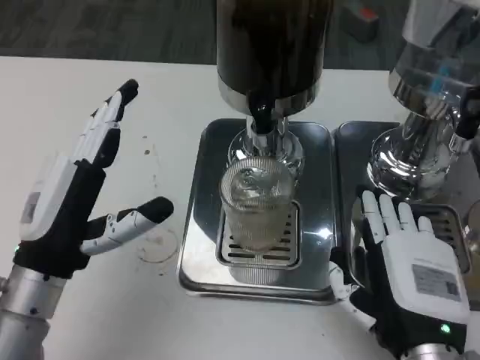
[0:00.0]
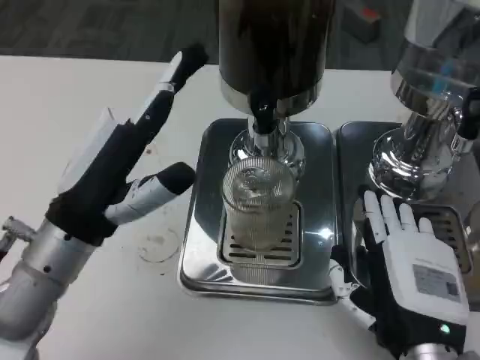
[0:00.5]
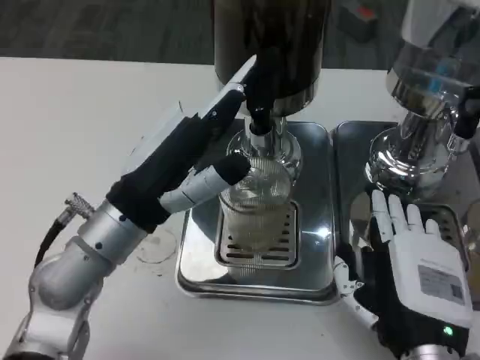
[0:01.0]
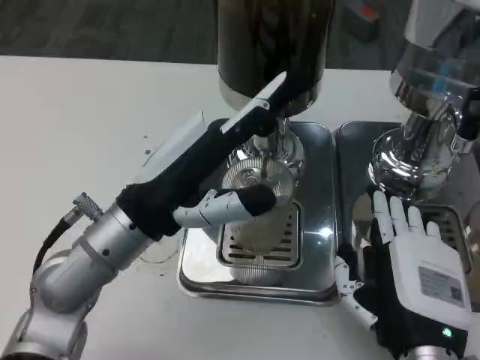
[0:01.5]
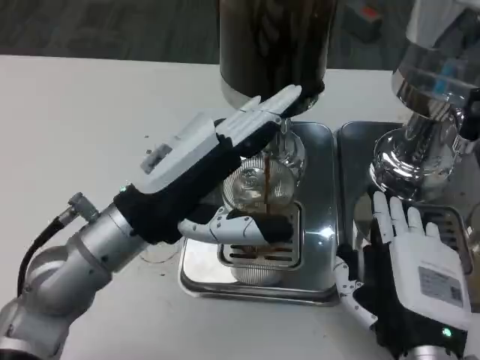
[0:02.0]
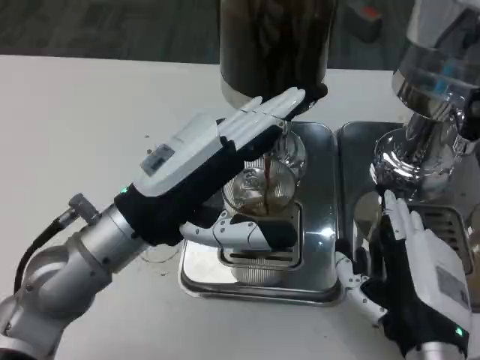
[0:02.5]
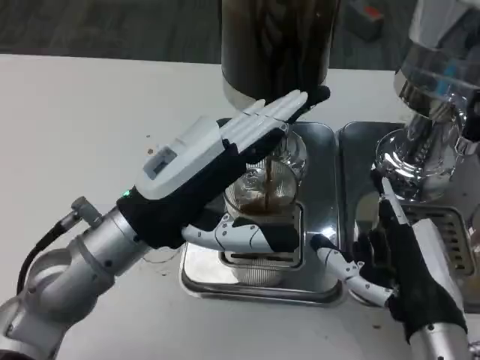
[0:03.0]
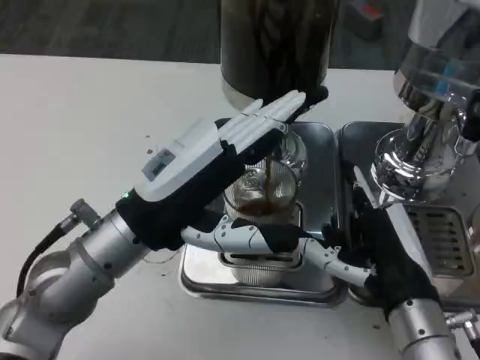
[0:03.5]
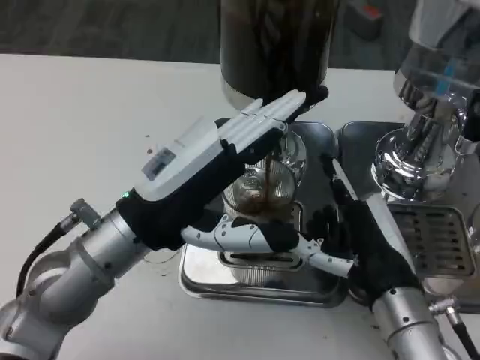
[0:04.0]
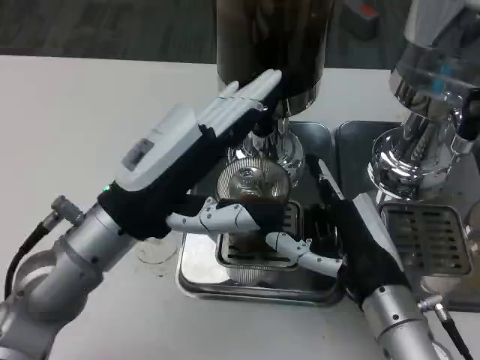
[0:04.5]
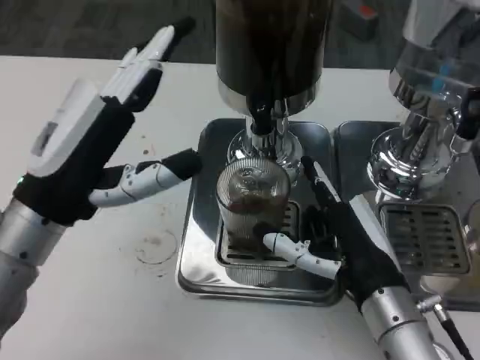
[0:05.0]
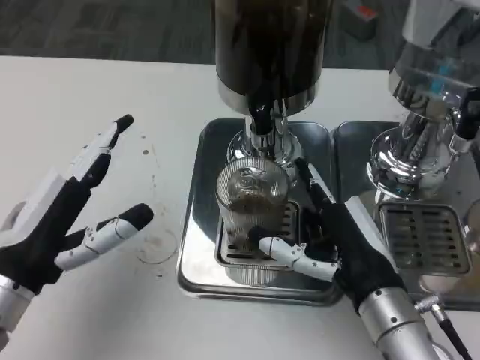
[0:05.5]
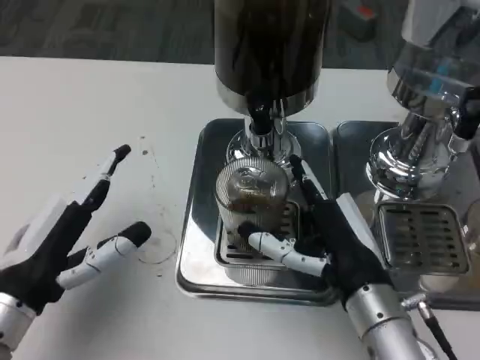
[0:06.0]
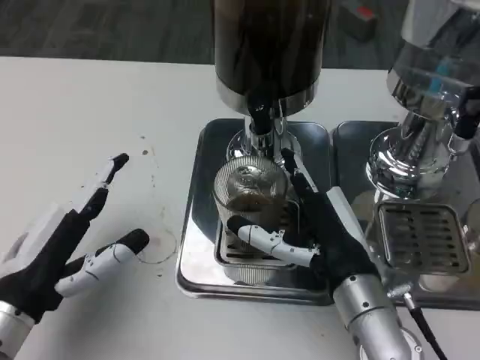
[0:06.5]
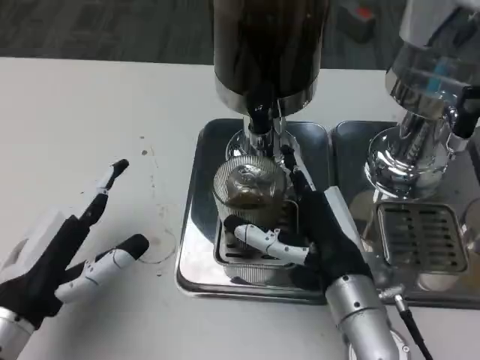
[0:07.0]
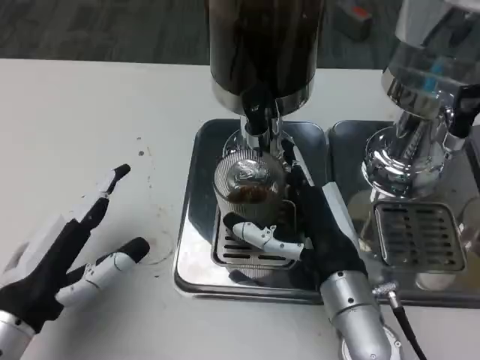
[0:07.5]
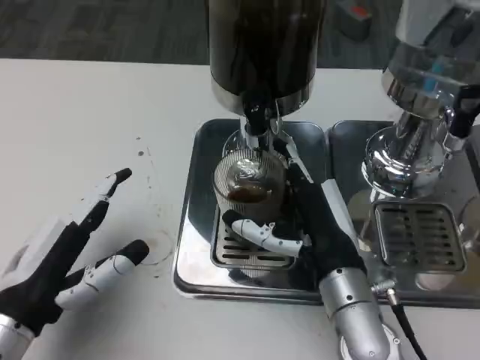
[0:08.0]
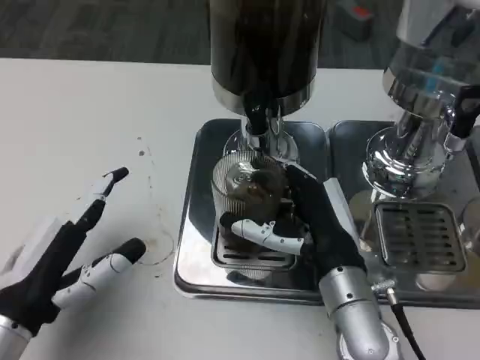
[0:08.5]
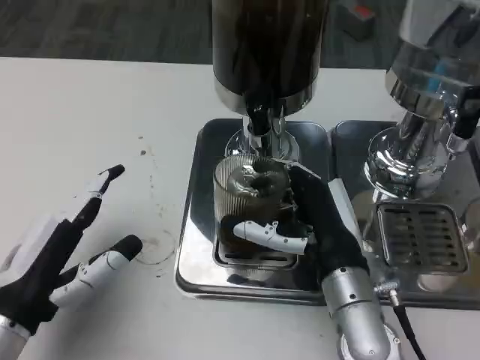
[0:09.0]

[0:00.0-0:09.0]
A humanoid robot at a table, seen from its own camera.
Task of the whole recording: Grasp the cup under the faucet to collect the drink, then remove the cup.
0:00.0 to 0:02.0: The left hand heads to the right and upward, covering about 10 cm.
0:02.0 to 0:04.5: The right hand goes roughly 5 cm forward.
0:04.5 to 0:07.0: The left hand shifts some 15 cm to the left, downward and backward.
0:07.0 to 0:09.0: The hands stay close to where they were, moving slightly.

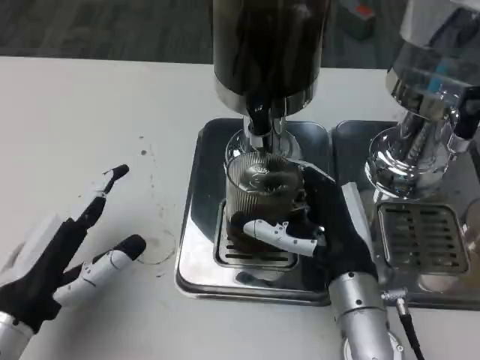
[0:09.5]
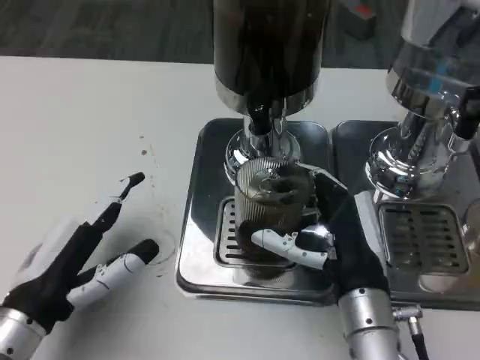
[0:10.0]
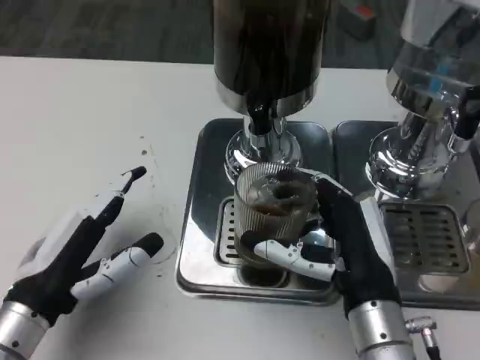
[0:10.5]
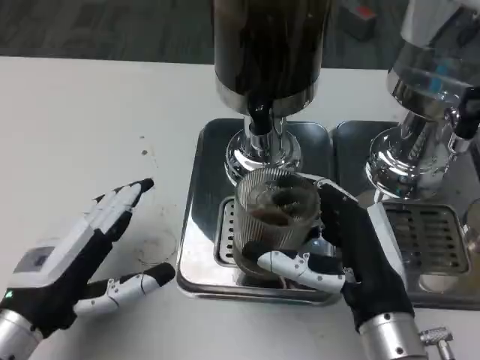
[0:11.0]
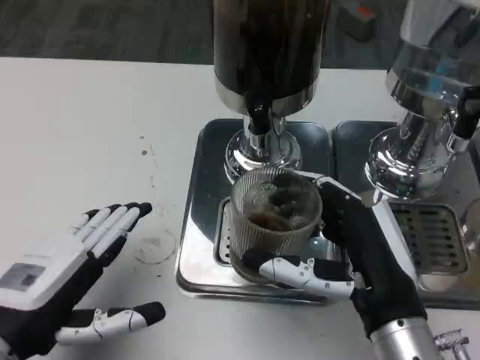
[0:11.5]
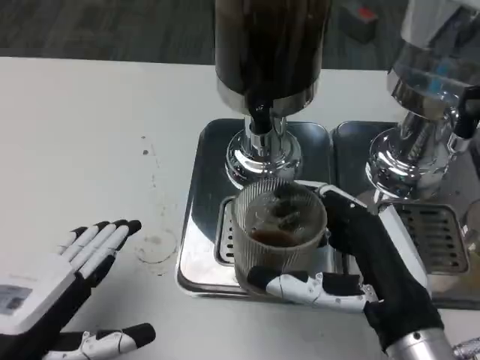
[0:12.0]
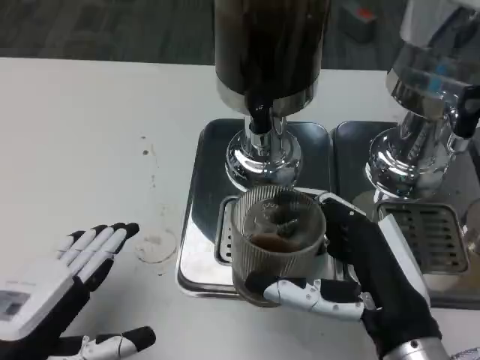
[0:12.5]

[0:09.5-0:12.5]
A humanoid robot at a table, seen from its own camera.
Task of the whole recording: Grasp the cup under the faucet to collect the drink, then remove the cup.
0:09.5 to 0:11.0: The right hand heads backward, covering some 5 cm.
0:11.0 to 0:12.5: The left hand ends up approximately 5 cm from where it was.

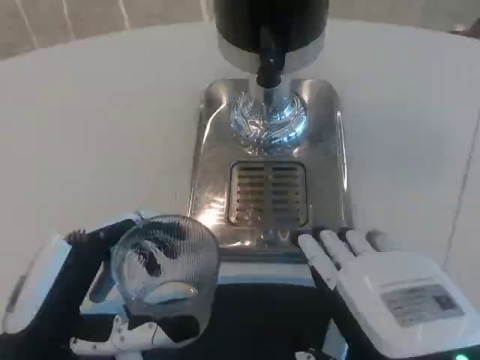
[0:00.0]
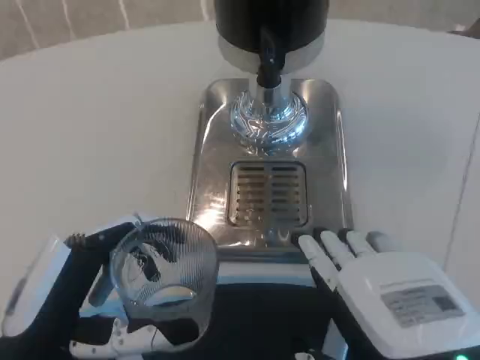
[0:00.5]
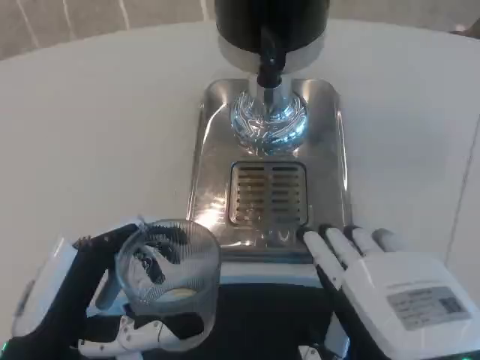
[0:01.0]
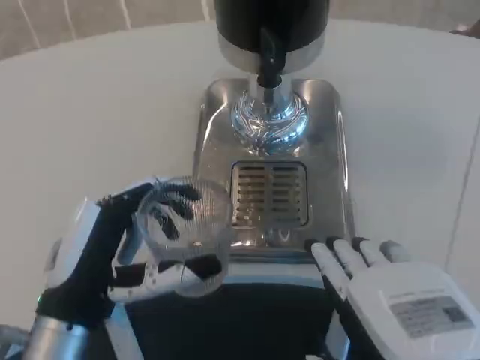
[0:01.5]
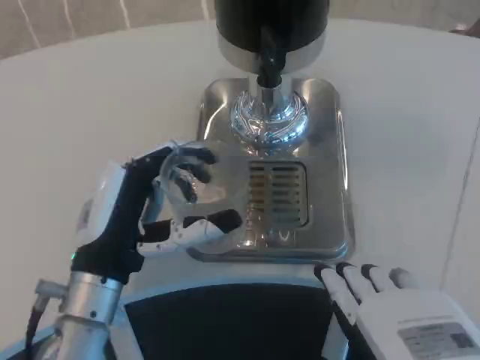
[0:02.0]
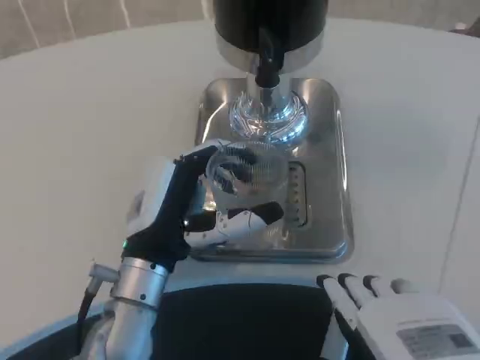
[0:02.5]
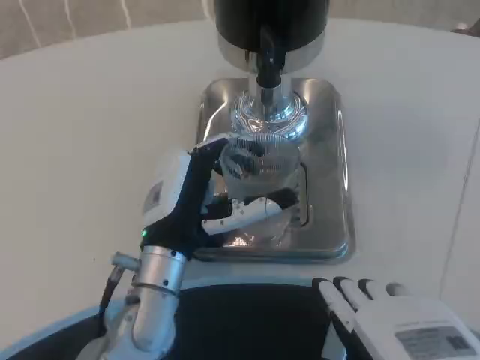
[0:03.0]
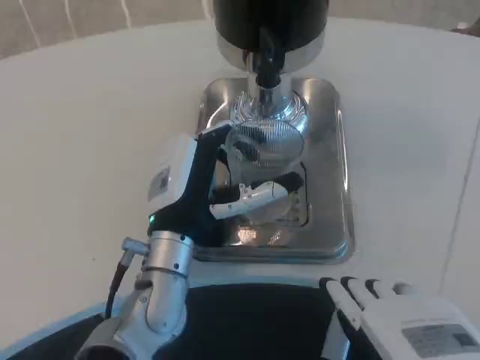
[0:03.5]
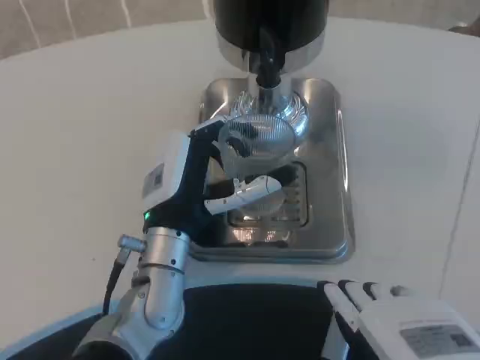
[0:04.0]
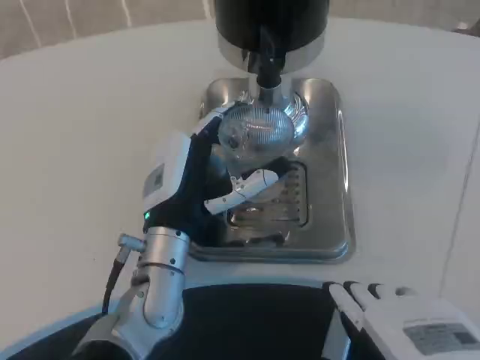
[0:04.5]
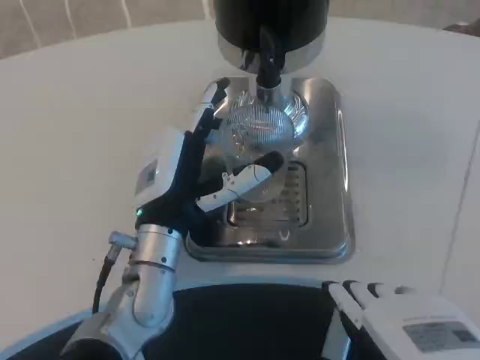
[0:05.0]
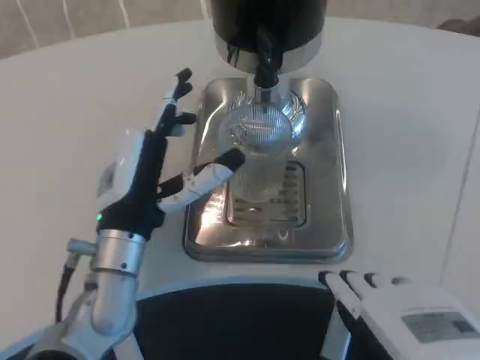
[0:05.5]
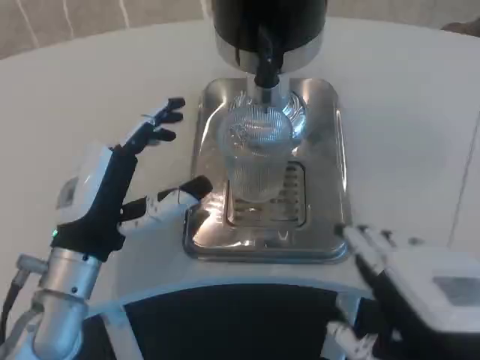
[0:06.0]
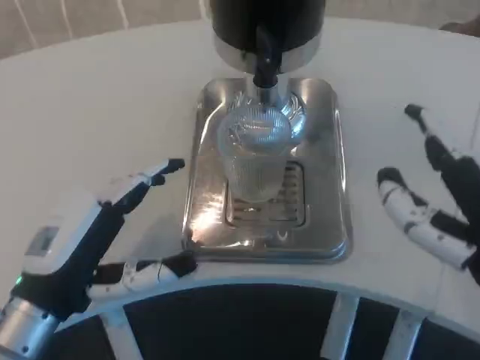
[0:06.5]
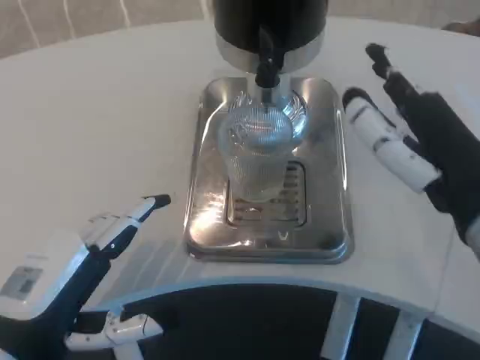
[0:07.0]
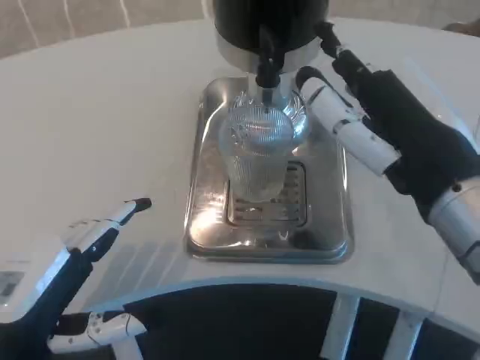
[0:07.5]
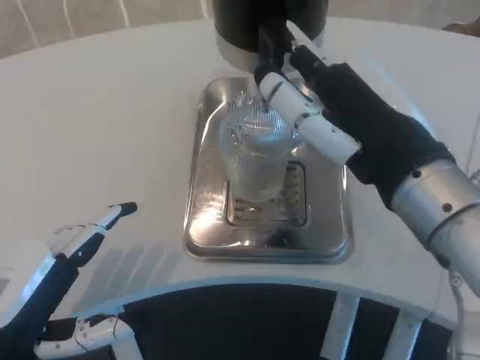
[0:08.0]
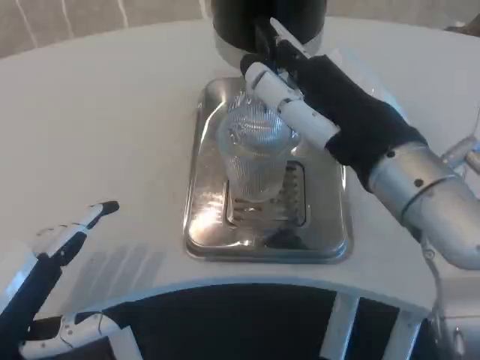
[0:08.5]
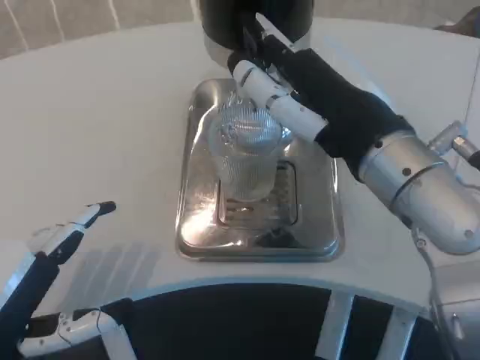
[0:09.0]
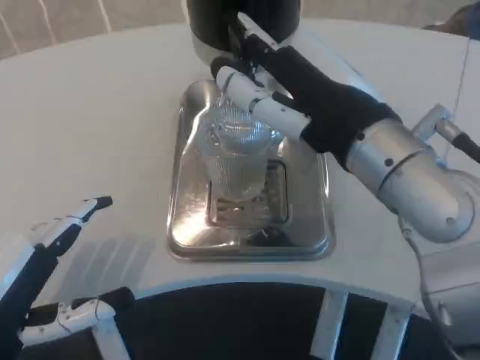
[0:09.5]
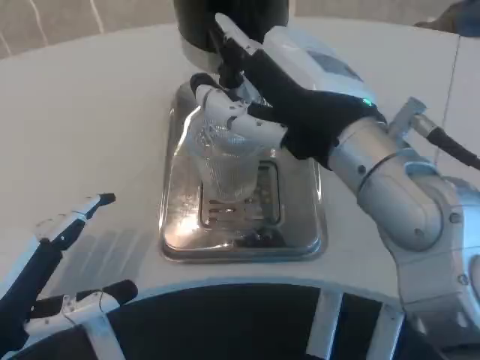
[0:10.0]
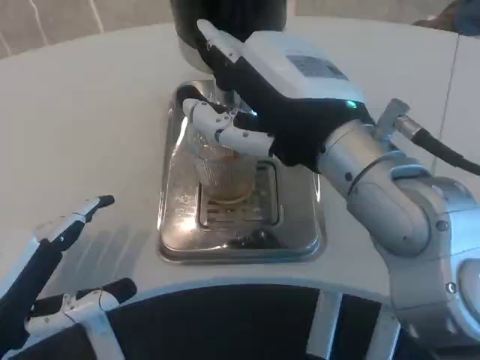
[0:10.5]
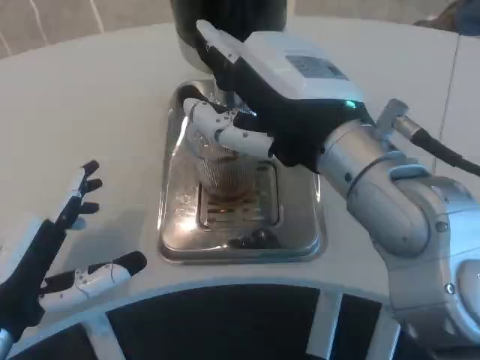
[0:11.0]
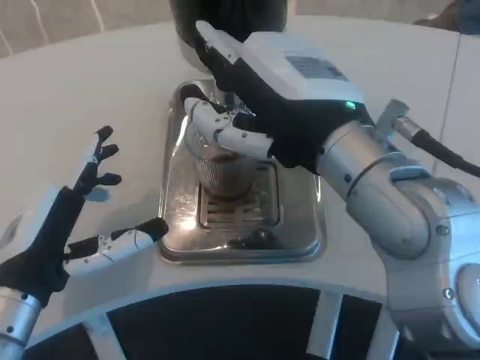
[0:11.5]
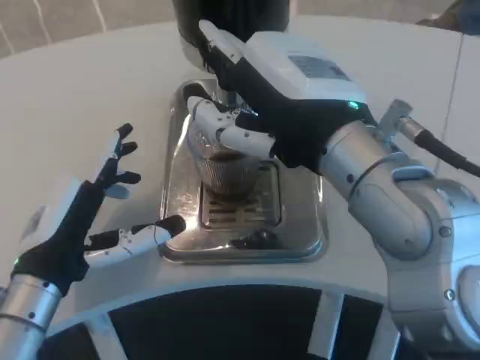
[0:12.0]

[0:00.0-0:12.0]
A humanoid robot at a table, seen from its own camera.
Task of the whole recording: Grasp the cup under the faucet to collect the drink, then remove the cup.
0:00.0 to 0:02.0: The left hand moves forward, about 10 cm.
0:02.0 to 0:04.0: The left hand moves to the right and forward, approximately 10 cm.
0:04.0 to 0:06.0: The left hand shifts some 10 cm to the left.
0:06.0 to 0:08.0: The left hand heads backward and to the left, covering approximately 15 cm. Meanwhile the right hand heads forward and upward, covering about 10 cm.
0:08.0 to 0:10.0: The right hand shifts by approximately 5 cm.
0:10.0 to 0:12.0: The left hand shifts approximately 10 cm forward and to the right.

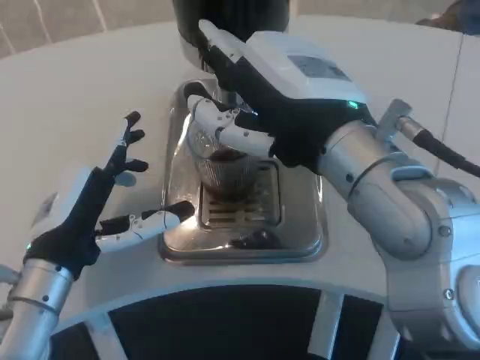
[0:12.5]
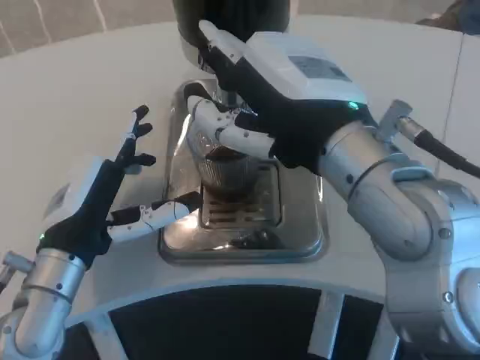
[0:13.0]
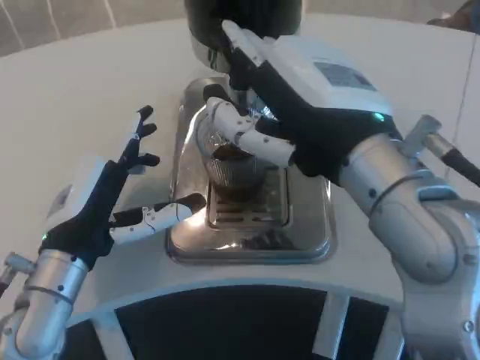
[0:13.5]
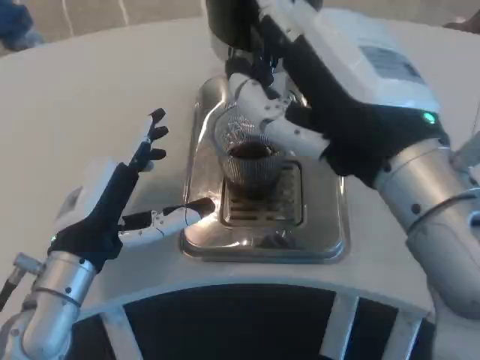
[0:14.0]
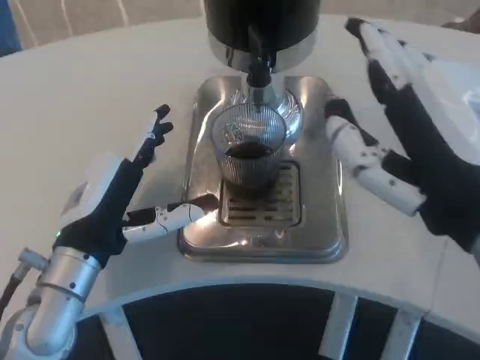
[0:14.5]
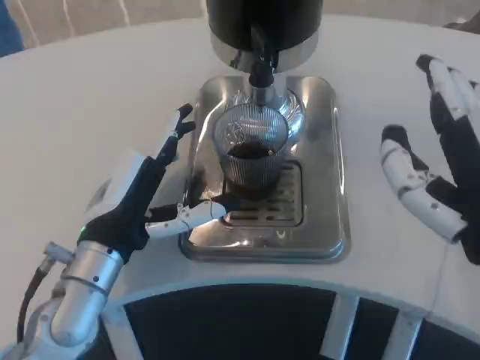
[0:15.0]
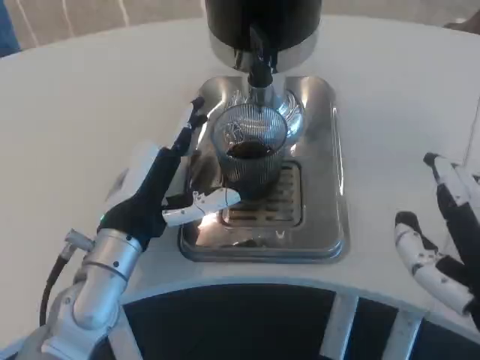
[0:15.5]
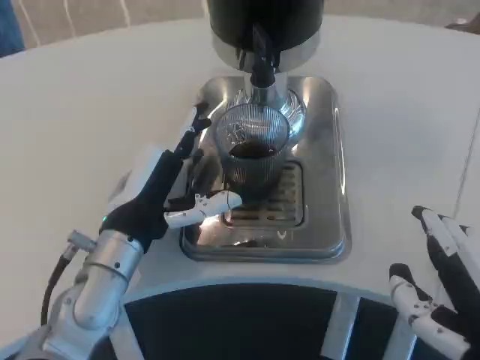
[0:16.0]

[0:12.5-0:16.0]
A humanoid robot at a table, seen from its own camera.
Task of the whole recording: Grasp the cup under the faucet to collect the drink, then remove the cup.
0:12.5 to 0:14.5: The right hand goes approximately 10 cm backward and to the right.
0:14.5 to 0:16.0: The right hand shifts roughly 5 cm downward.
